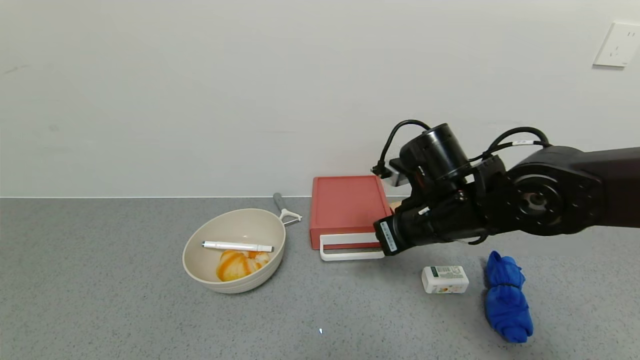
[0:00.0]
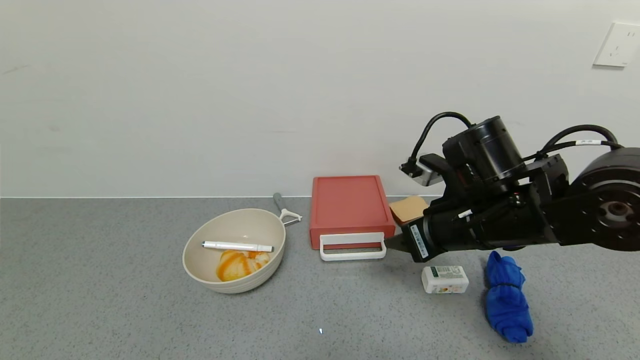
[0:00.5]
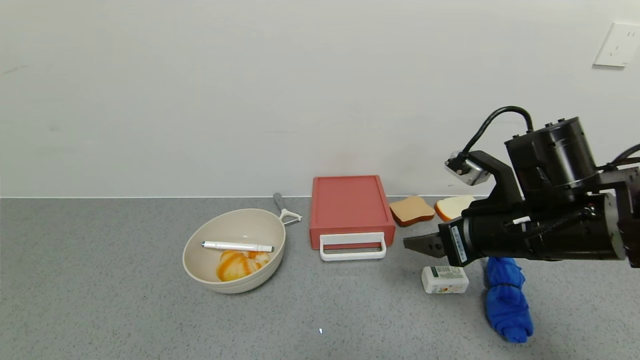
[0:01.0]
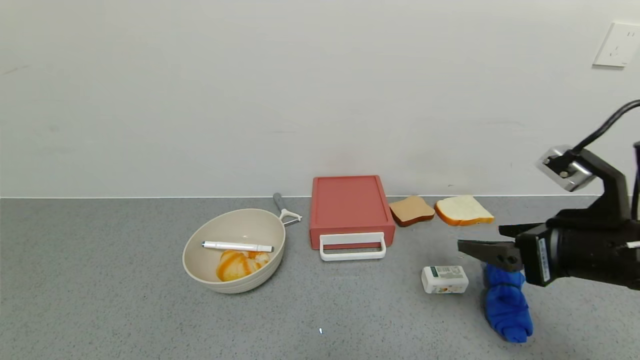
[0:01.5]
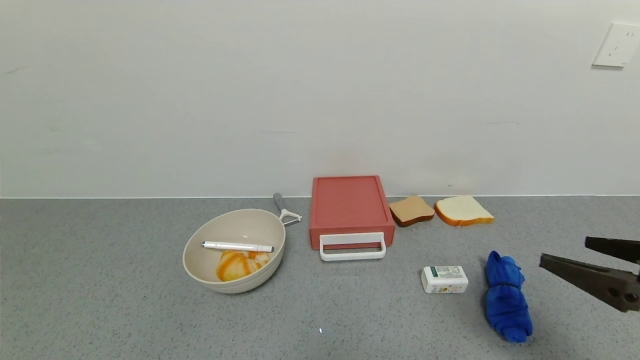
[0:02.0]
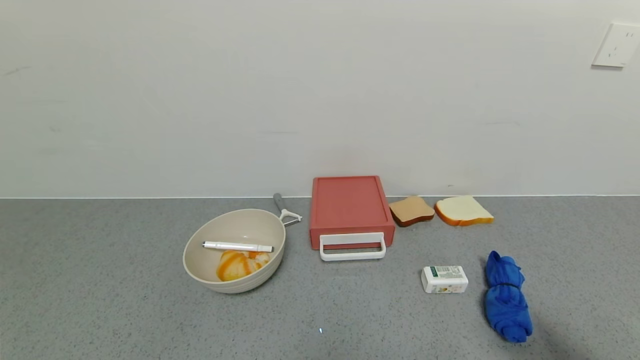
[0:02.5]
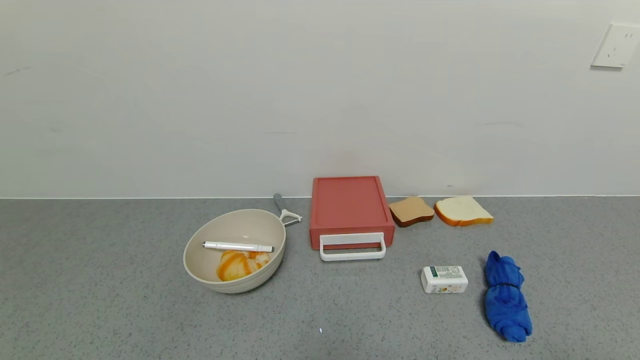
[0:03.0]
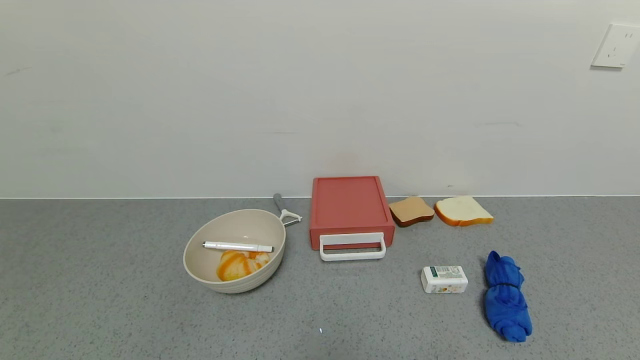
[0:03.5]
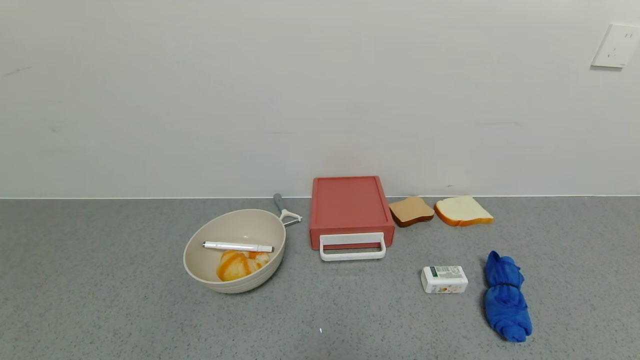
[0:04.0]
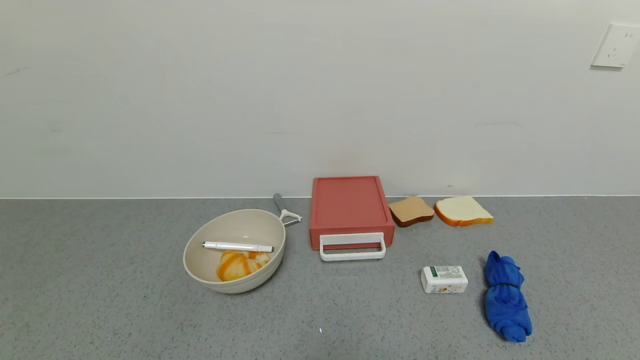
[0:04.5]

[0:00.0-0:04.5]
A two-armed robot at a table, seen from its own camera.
Task of the whole recording: use the gripper to open the drawer and close the red drawer.
0:00.0 to 0:02.0: The right gripper travels to the right and backward by some 25 cm, and opens up.
0:02.0 to 0:04.5: The right gripper moves downward and backward, roughly 20 cm.

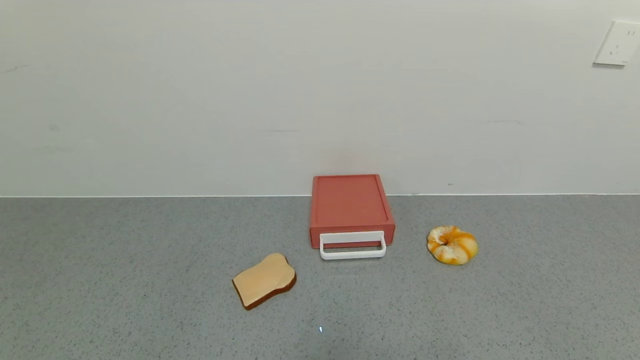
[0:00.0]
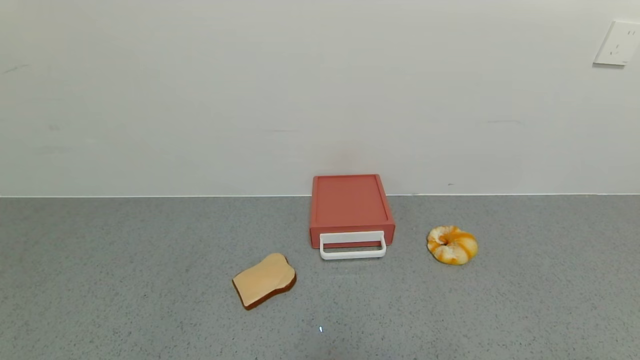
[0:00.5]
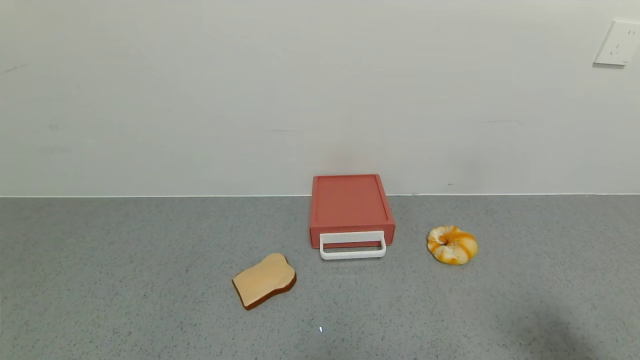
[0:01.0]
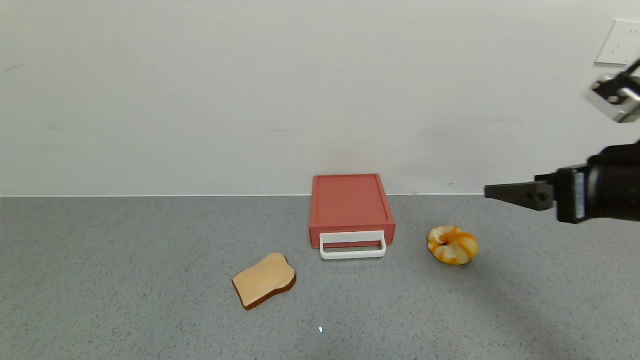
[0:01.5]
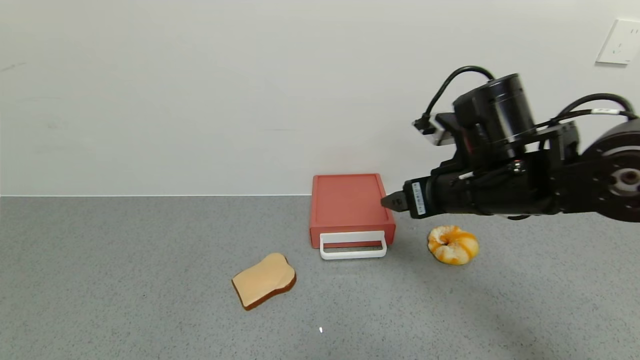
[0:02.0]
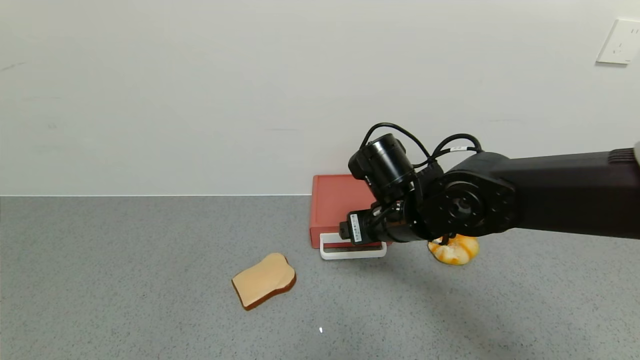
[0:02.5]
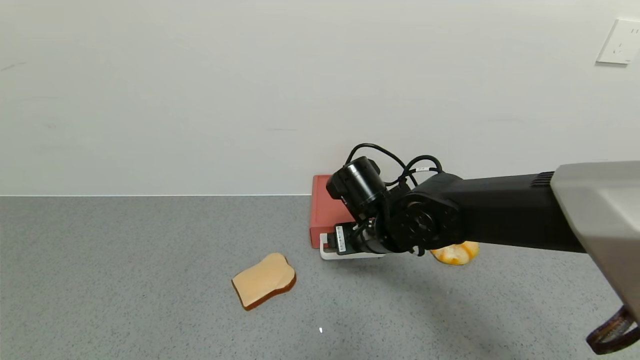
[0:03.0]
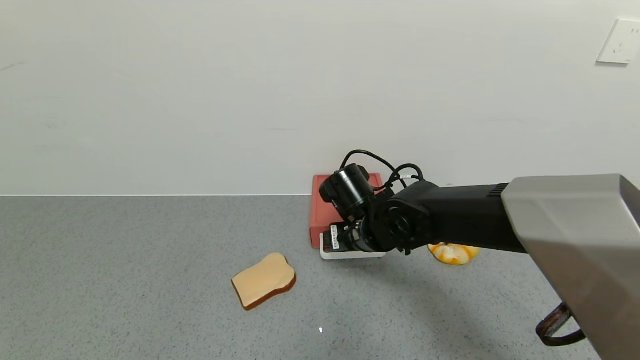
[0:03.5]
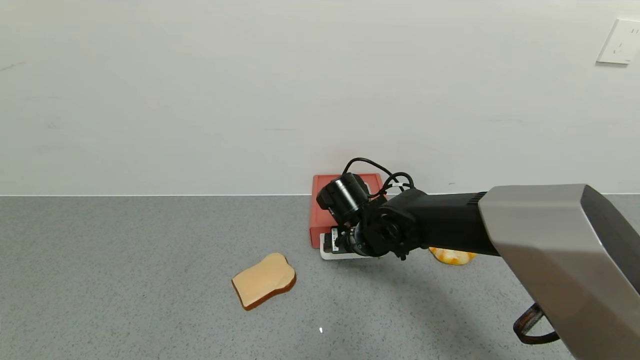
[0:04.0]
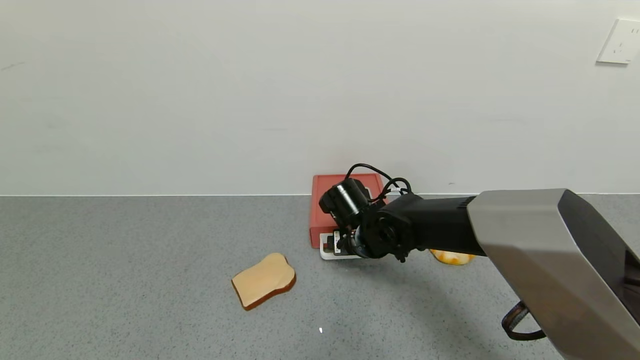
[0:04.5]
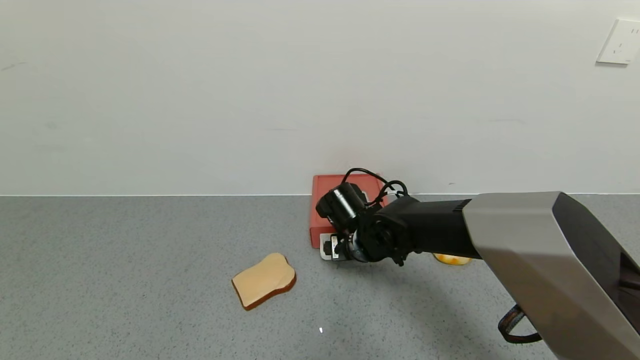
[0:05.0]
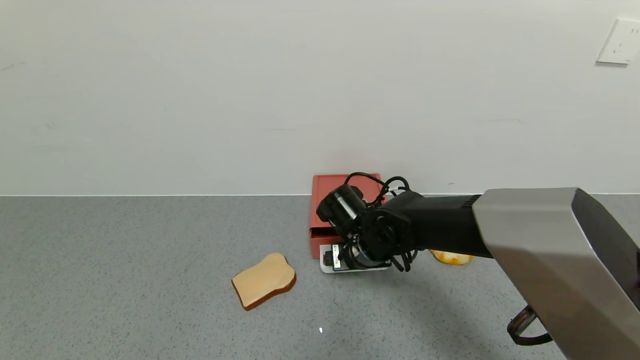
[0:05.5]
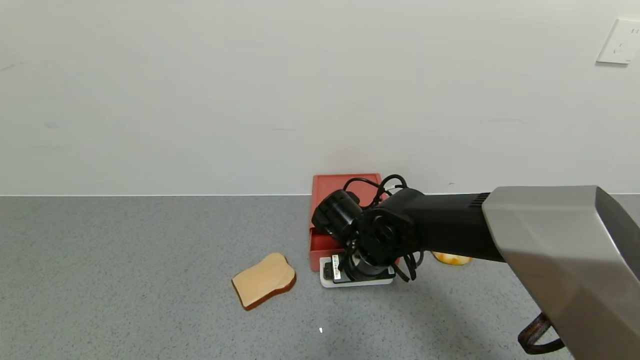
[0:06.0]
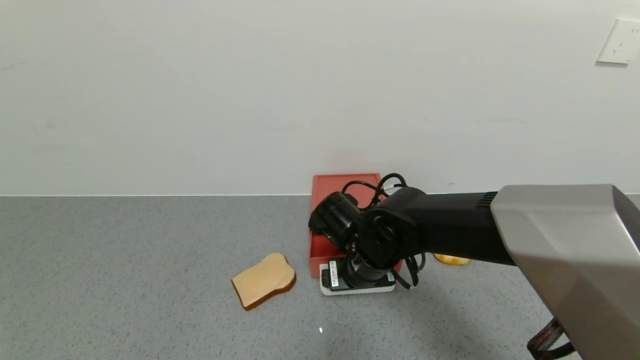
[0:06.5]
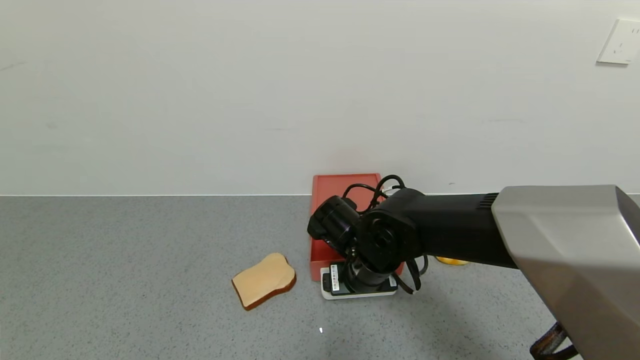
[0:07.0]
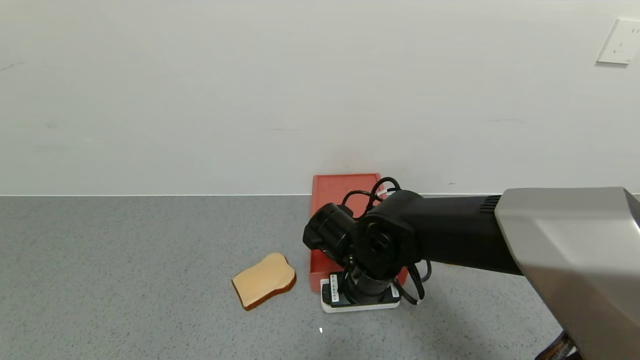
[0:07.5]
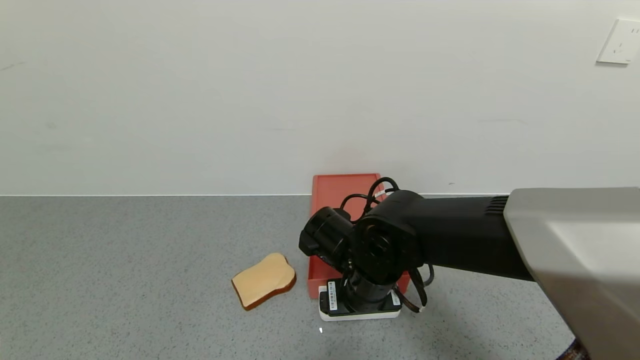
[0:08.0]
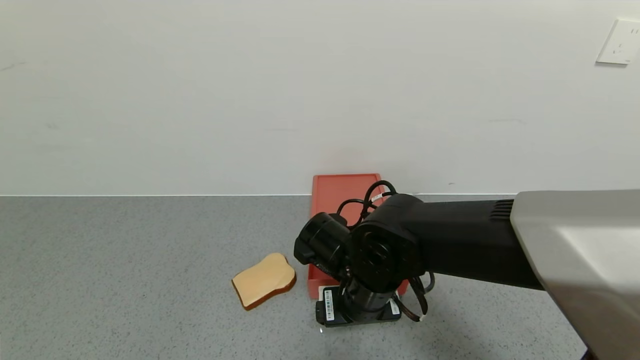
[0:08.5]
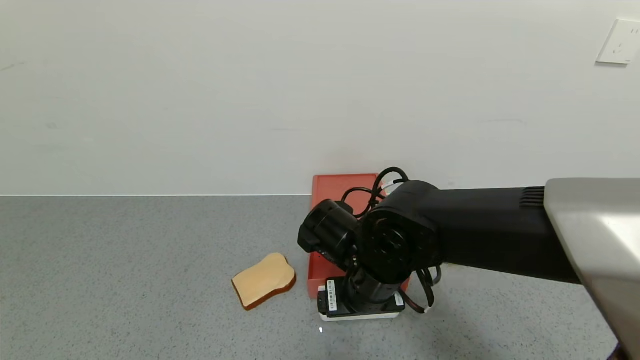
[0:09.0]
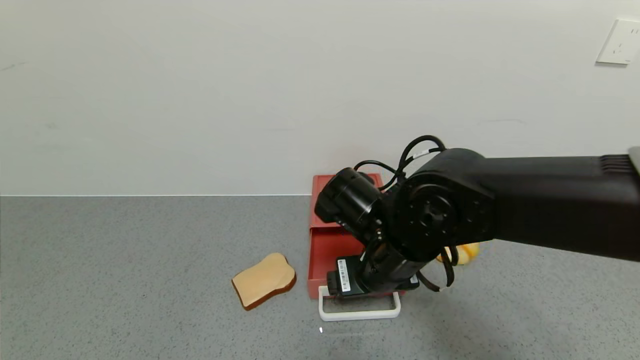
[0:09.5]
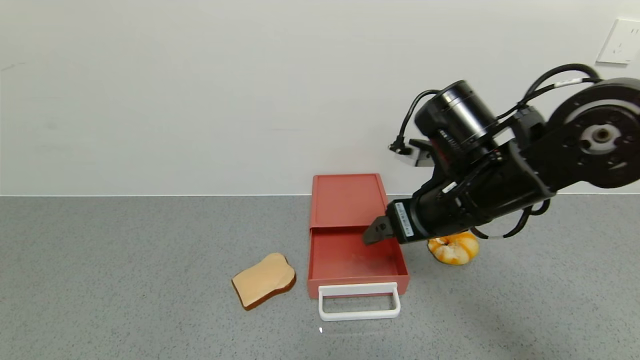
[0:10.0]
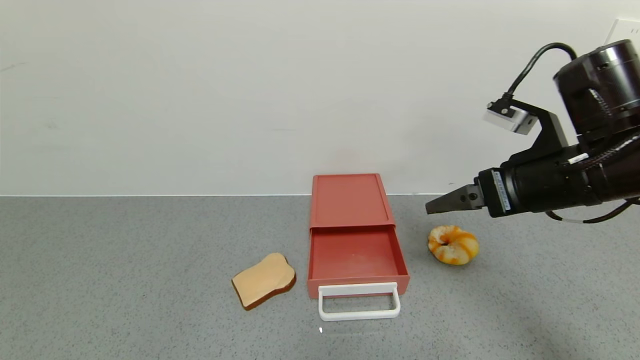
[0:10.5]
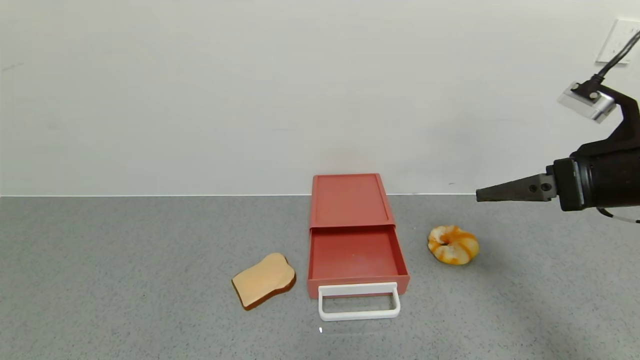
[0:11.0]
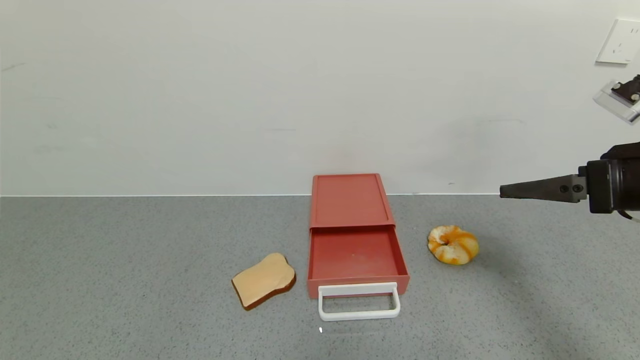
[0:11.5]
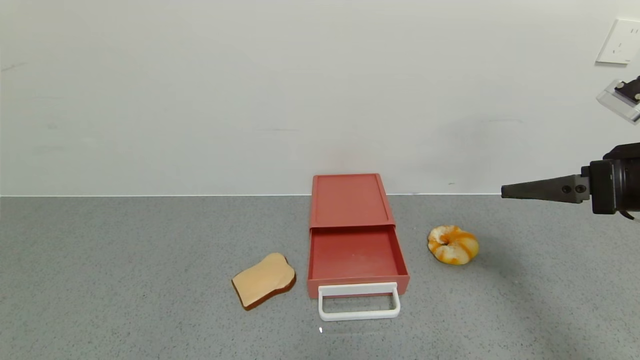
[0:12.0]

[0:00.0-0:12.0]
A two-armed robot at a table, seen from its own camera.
Task of the whole recording: use the gripper to open the drawer and close the red drawer.
Step, 0:00.0 to 0:09.0: Open the red drawer with the right gripper.
0:00.0 to 0:02.0: The right gripper is displaced forward, to the left and upward by some 40 cm.
0:02.0 to 0:04.0: The right gripper goes roughly 20 cm downward, to the left and forward.
0:04.0 to 0:06.0: There are only small adjustments of the grippers.
0:06.0 to 0:08.0: The right gripper shifts by roughly 5 cm.
0:08.0 to 0:10.0: The right gripper travels upward and to the right by roughly 15 cm.
0:10.0 to 0:12.0: The right gripper travels to the right by approximately 20 cm.

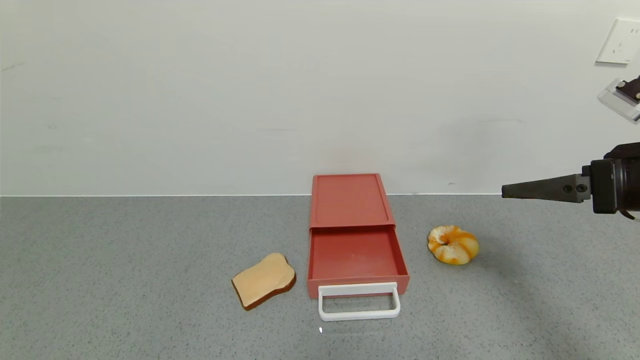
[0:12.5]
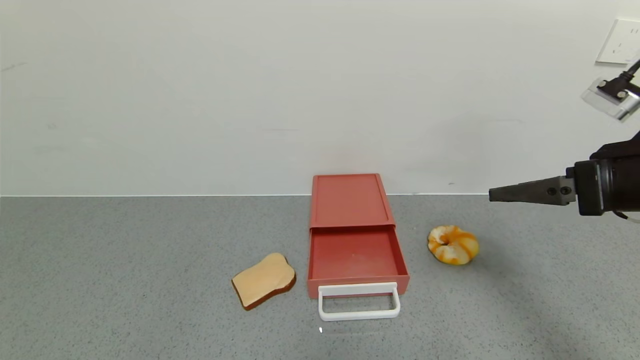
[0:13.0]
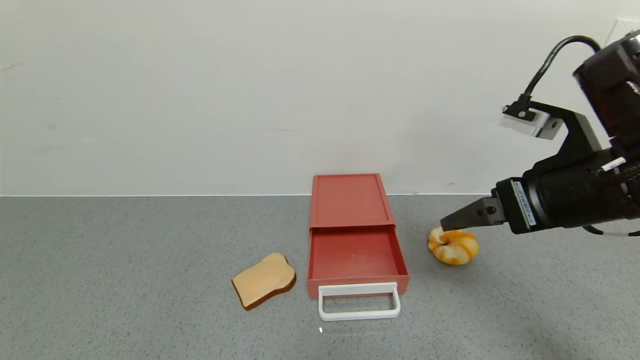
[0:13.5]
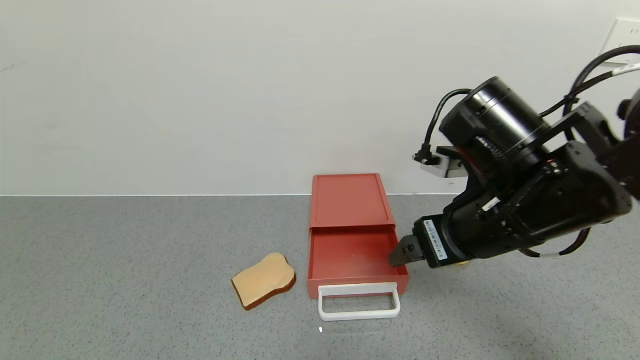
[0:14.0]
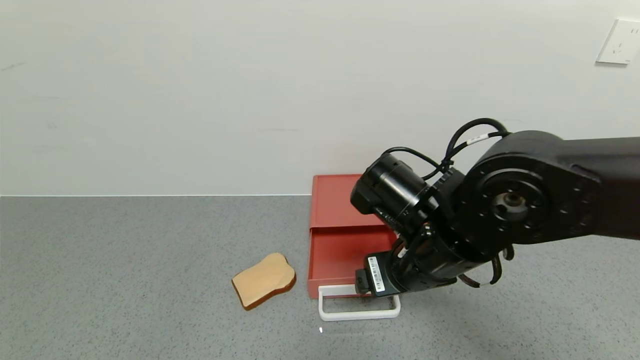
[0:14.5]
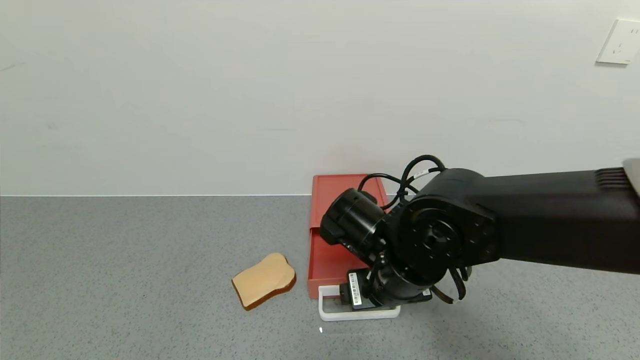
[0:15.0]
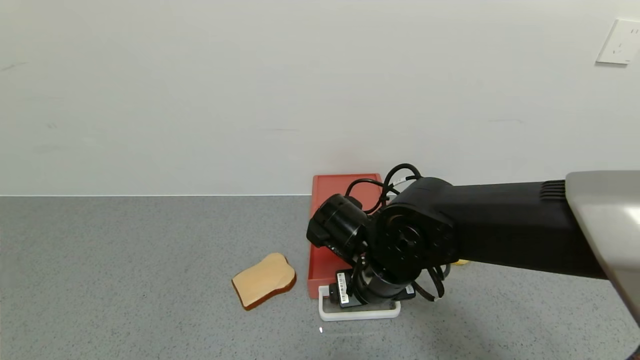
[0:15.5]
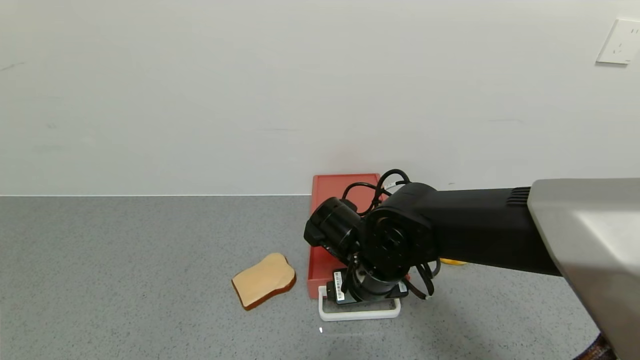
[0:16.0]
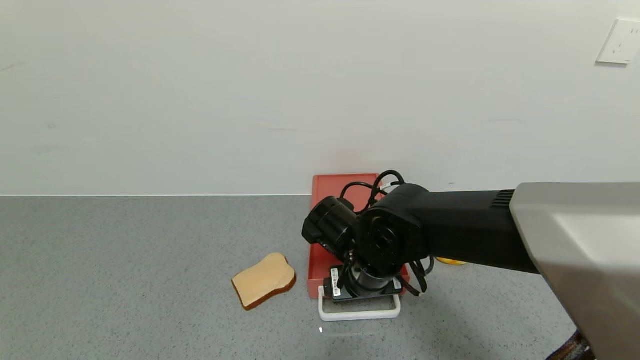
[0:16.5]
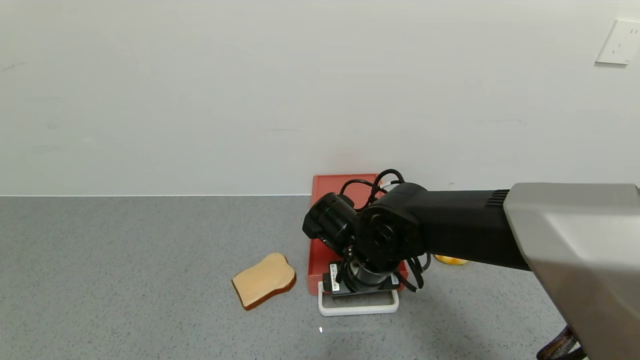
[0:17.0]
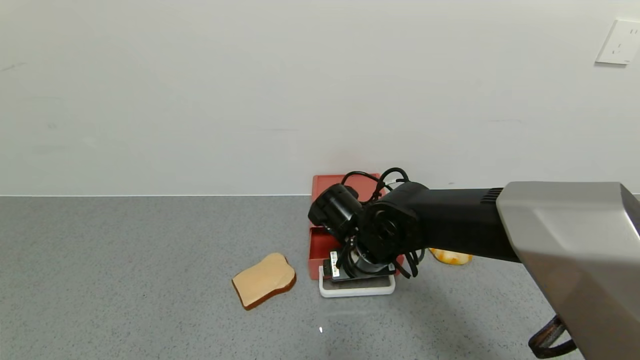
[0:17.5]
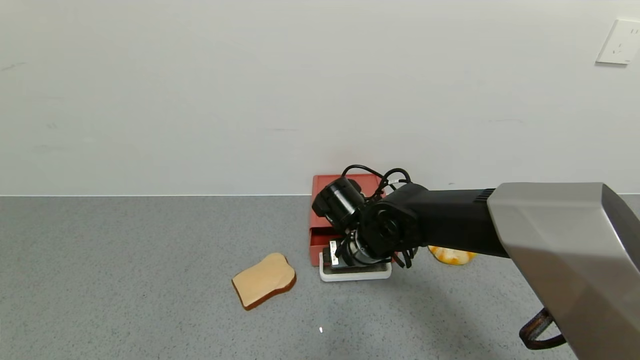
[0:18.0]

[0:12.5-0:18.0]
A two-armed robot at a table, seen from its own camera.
Task of the whole recording: use the gripper to open the drawer and close the red drawer.
0:12.5 to 0:14.5: The right gripper heads to the left, covering about 25 cm.
0:14.5 to 0:16.0: The right gripper moves downward, about 5 cm.
0:16.0 to 0:18.0: The right gripper shifts about 5 cm forward.
